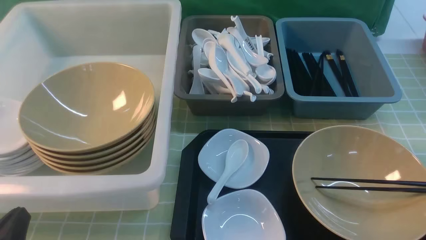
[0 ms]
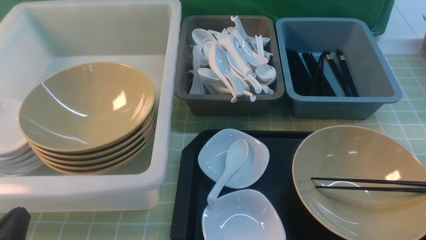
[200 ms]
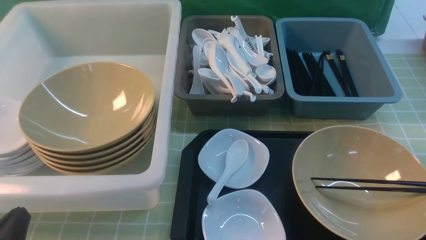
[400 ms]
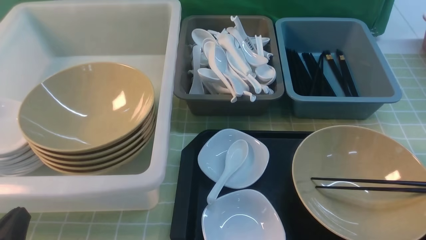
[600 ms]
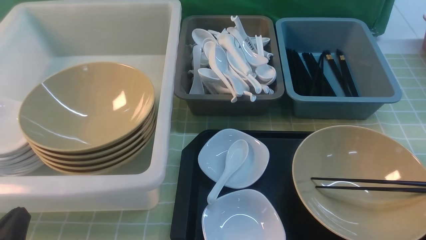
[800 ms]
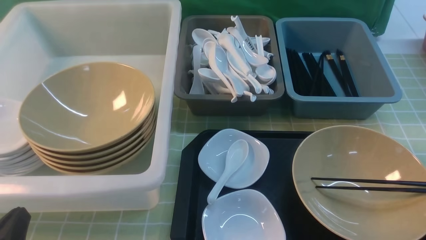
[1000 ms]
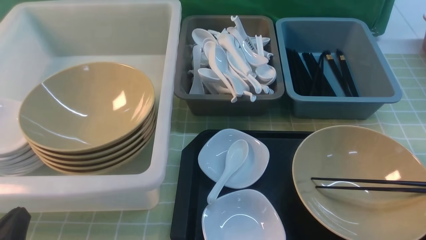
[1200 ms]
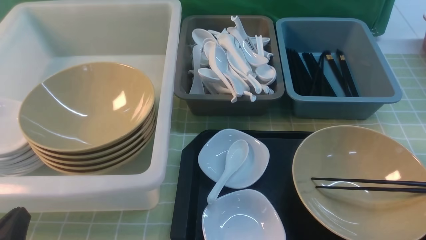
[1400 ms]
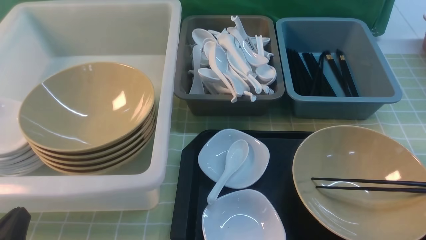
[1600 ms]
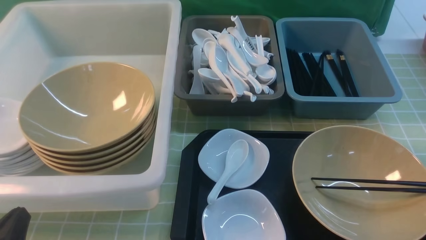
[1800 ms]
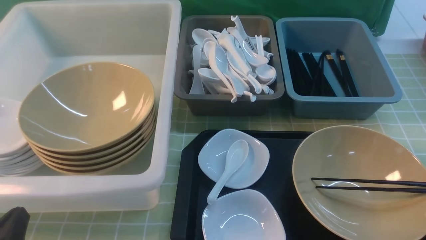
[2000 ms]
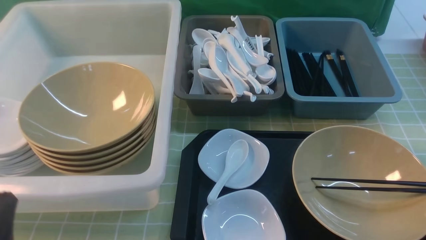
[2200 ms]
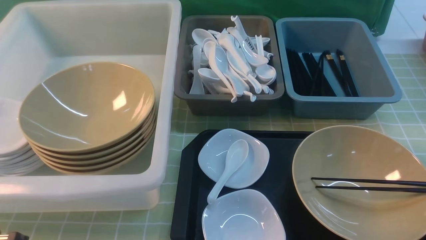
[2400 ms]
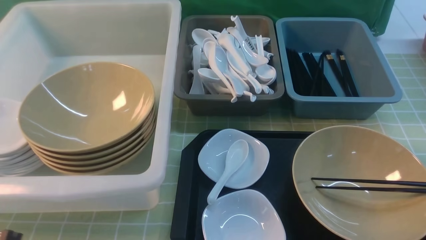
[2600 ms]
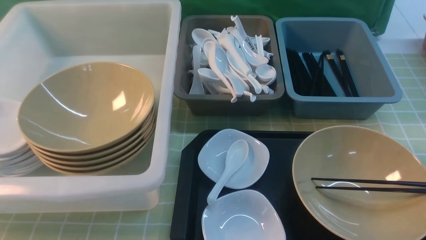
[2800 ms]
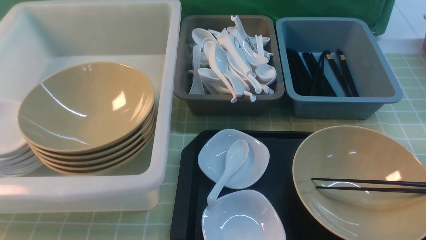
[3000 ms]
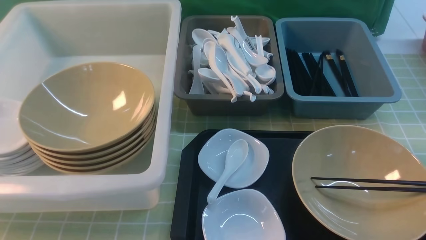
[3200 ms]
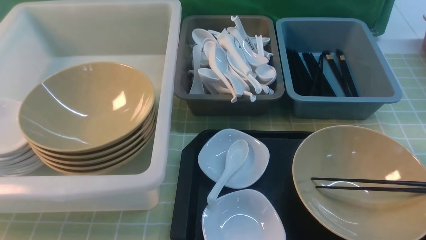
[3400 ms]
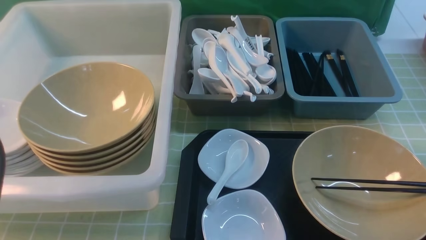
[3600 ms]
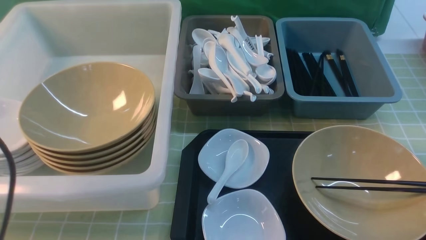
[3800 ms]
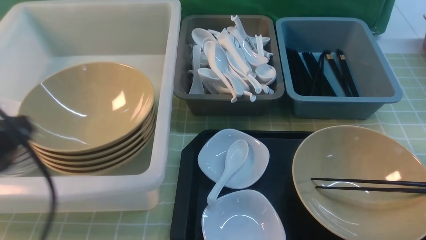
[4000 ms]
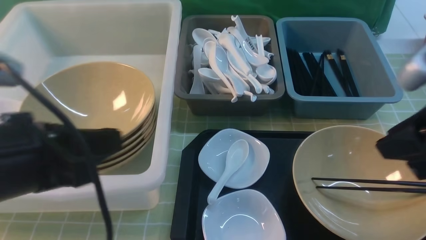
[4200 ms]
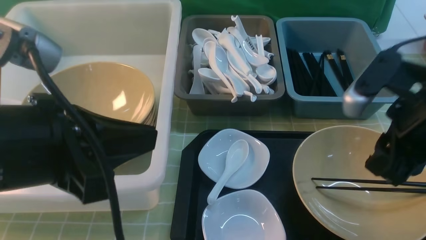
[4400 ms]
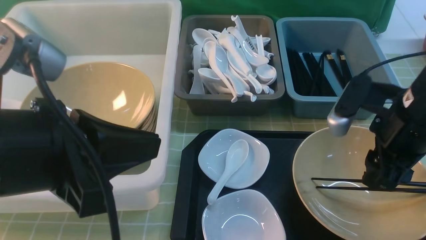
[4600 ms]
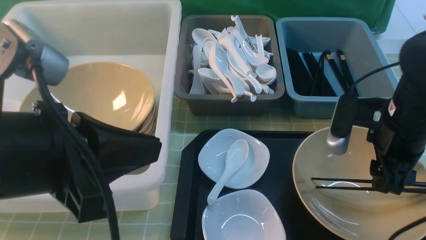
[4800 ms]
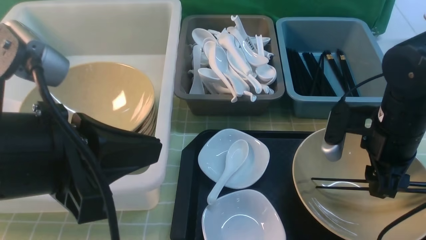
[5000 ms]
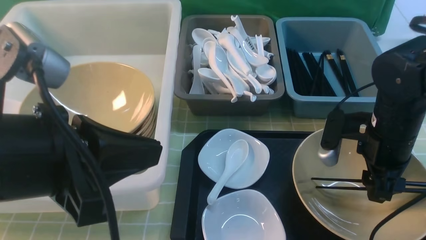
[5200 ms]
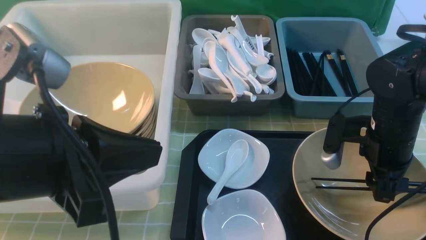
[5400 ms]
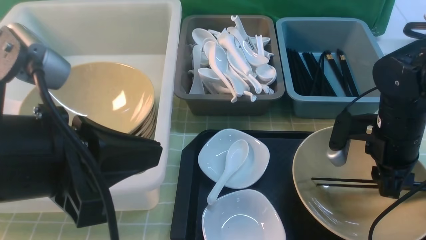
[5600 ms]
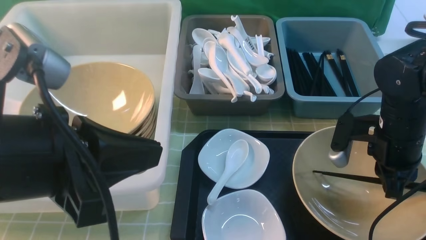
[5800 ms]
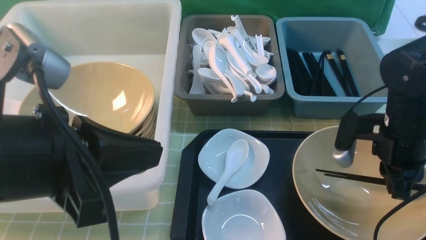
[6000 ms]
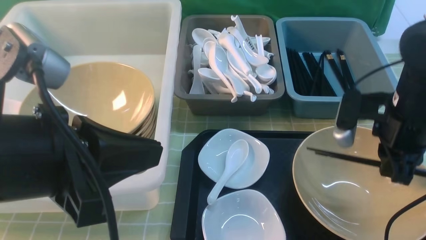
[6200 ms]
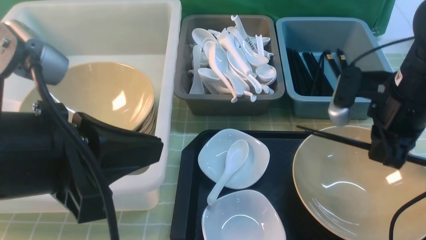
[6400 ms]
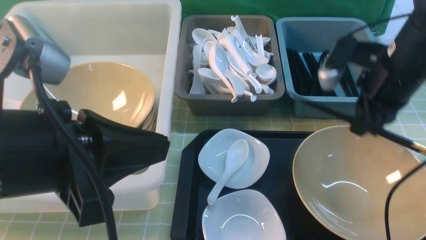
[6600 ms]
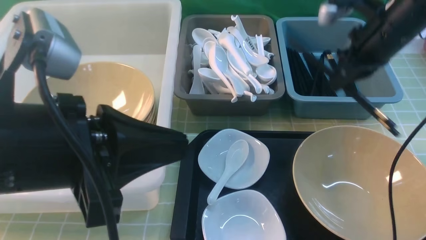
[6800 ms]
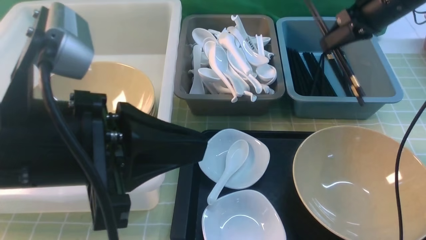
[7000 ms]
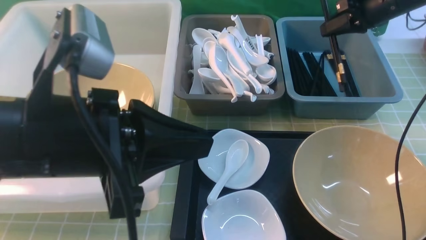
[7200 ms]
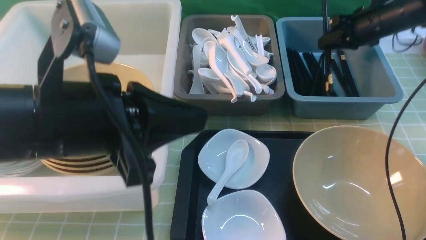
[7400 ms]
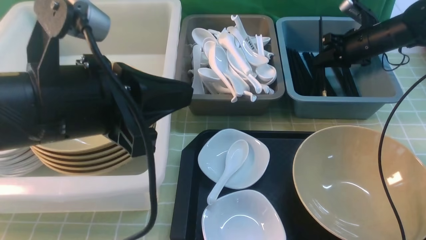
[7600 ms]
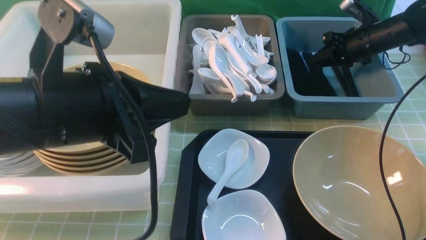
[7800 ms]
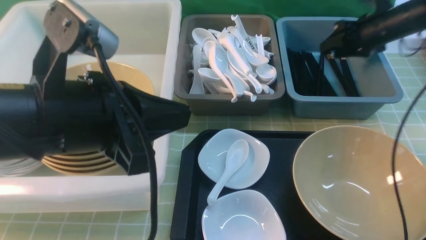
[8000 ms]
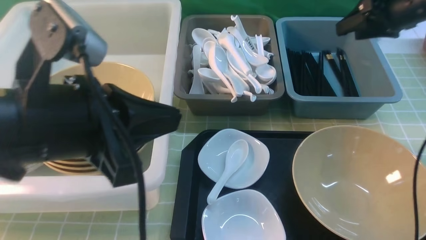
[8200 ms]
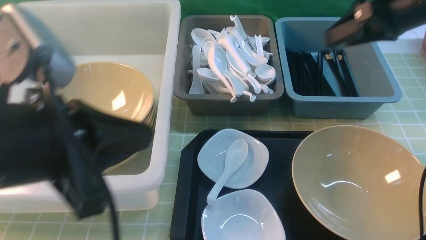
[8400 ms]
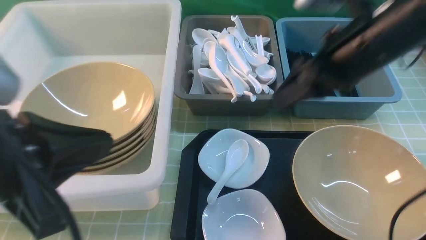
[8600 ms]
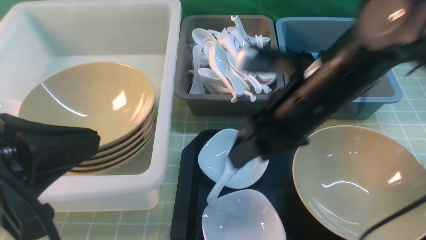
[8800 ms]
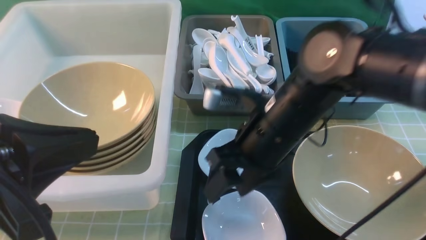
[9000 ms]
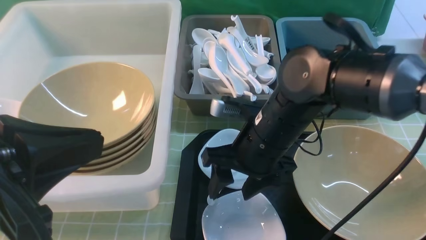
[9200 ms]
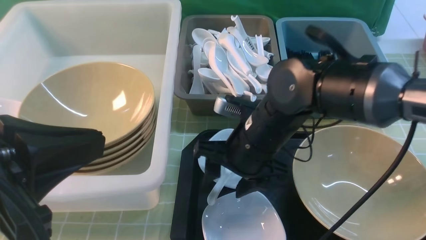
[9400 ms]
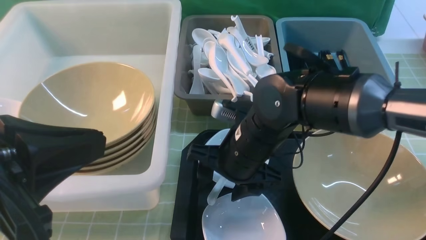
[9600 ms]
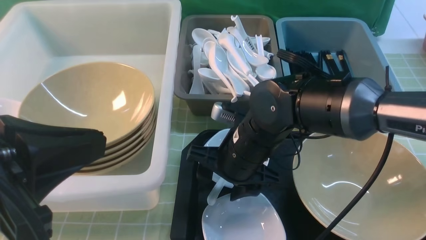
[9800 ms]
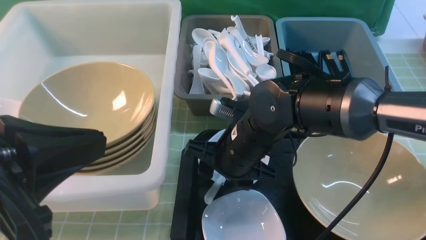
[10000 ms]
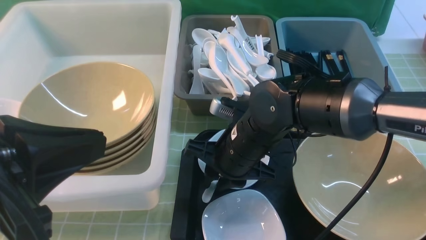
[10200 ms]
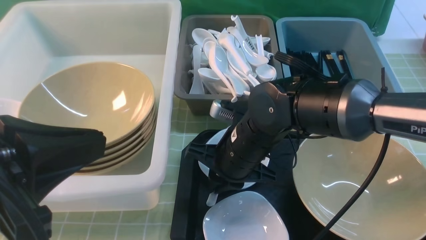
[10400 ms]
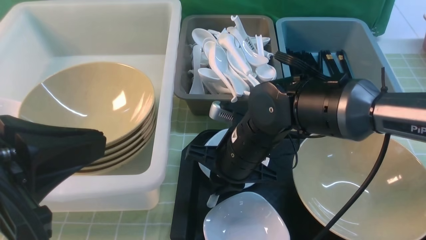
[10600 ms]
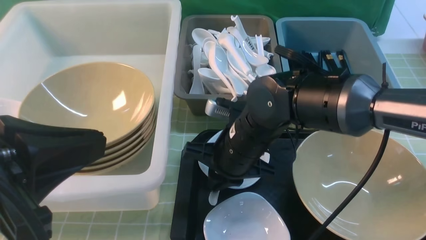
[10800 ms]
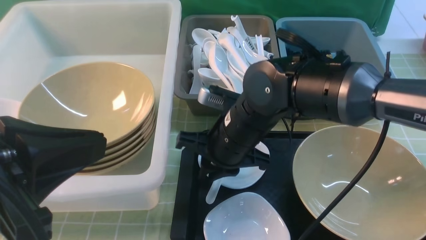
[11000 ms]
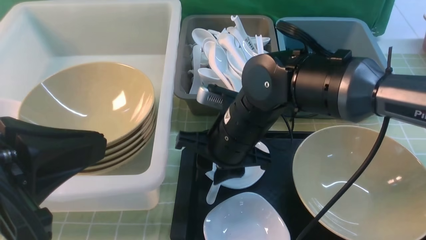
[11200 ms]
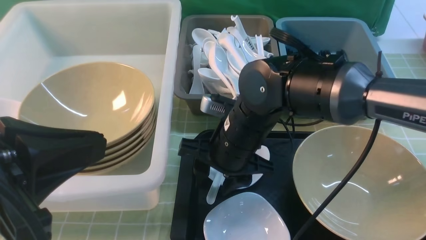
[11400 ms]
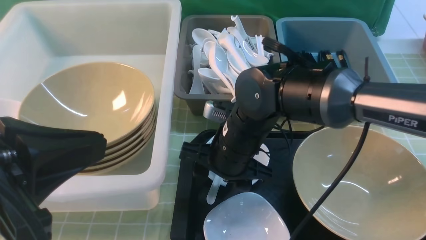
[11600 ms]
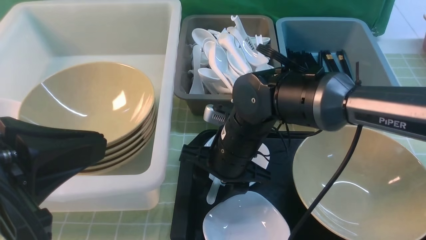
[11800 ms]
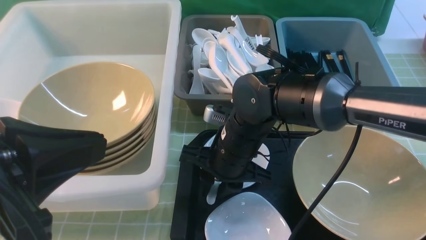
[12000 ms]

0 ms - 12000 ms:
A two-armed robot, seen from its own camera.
Task of the whole recording: on green table put chopsticks spoon bowls plates into blue grey white boxes.
Step, 0 ms - 6000 ms: use the right arm to grab the chopsticks.
Step, 6200 ms - 7800 ms: use the right arm to put the chopsticks into the small storage box on the right.
0 ms - 1600 ms: Neither gripper changes place.
1600 ms - 3000 ms: The left gripper heads upward, covering roughly 10 cm.
3000 ms - 4400 ms: The left gripper moves to the right, forward and upward, about 15 cm, while the right gripper travels forward and to the left by approximately 20 cm.
4400 ms - 6000 ms: The right gripper is displaced downward and forward by some 10 cm, and closes up.
6000 ms - 7600 ms: The left gripper moves approximately 5 cm, while the right gripper shifts about 25 cm forward.
7600 ms - 9000 ms: The left gripper travels backward and to the left by roughly 10 cm; the right gripper is displaced backward and to the left by about 35 cm, and opens up.
9000 ms - 10400 ms: The right gripper is displaced downward by about 5 cm, and closes up.
10400 ms - 12000 ms: The right gripper opens and closes again.

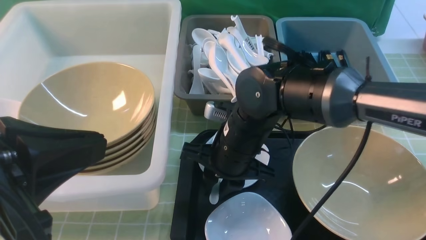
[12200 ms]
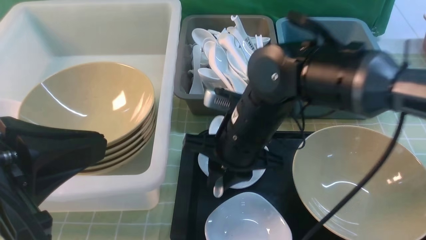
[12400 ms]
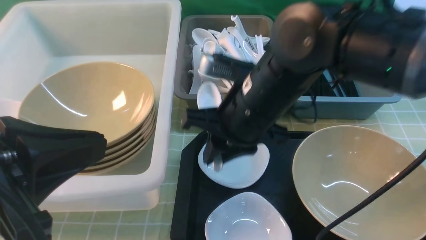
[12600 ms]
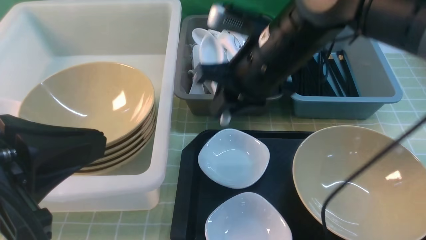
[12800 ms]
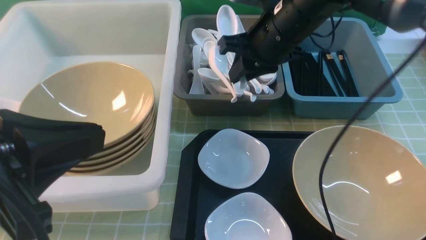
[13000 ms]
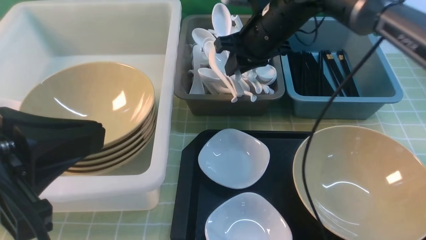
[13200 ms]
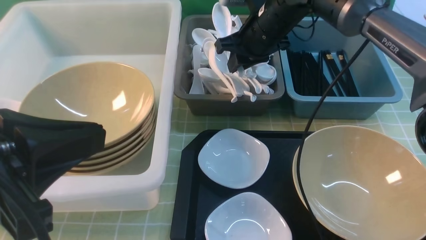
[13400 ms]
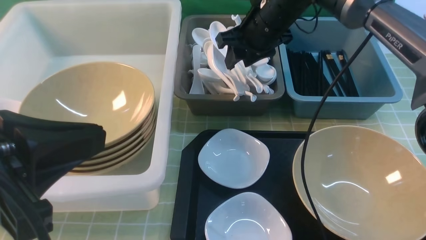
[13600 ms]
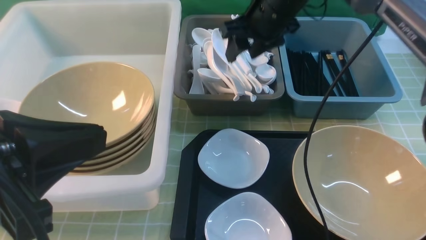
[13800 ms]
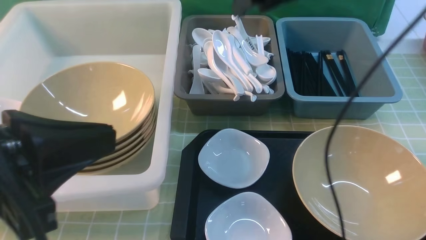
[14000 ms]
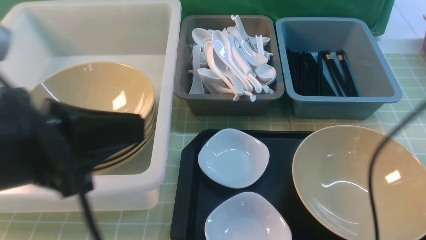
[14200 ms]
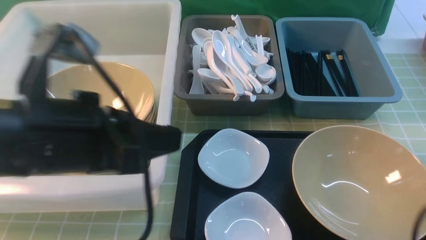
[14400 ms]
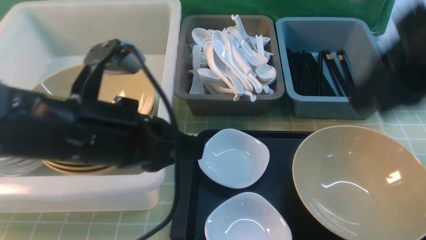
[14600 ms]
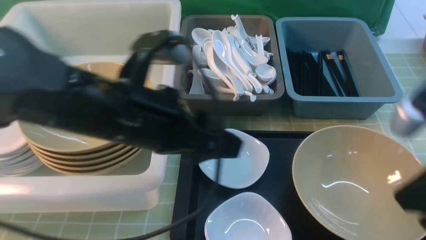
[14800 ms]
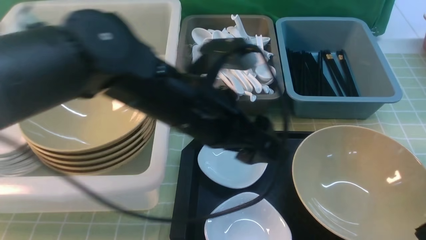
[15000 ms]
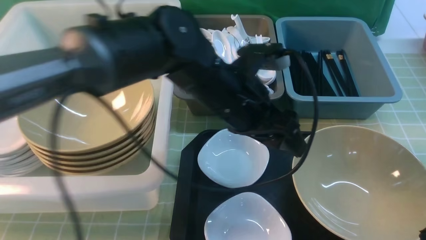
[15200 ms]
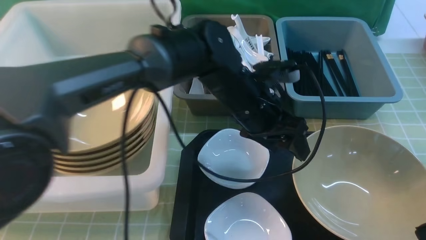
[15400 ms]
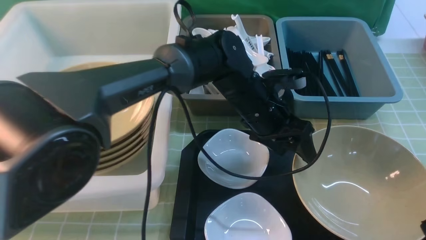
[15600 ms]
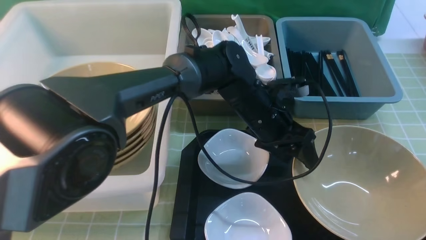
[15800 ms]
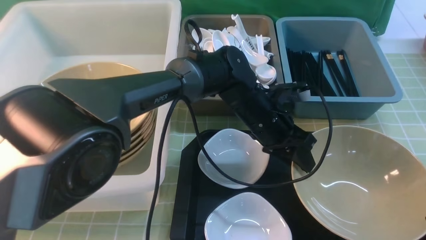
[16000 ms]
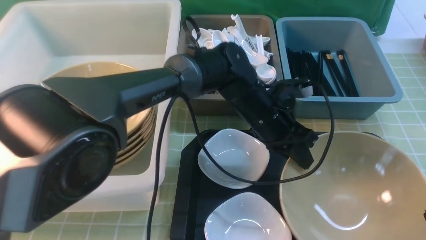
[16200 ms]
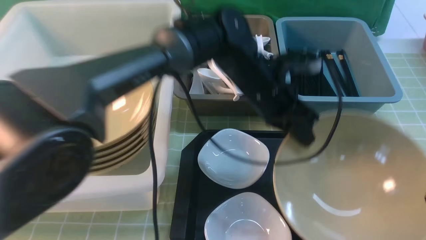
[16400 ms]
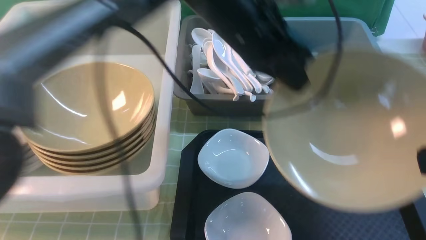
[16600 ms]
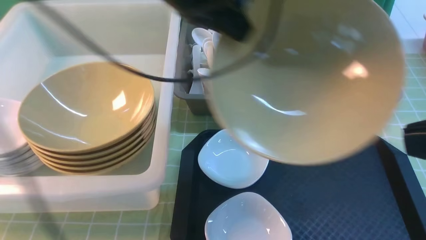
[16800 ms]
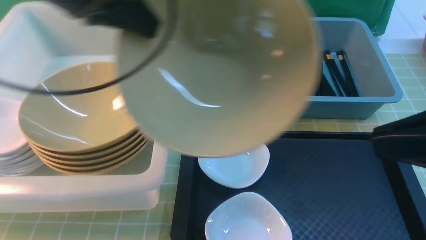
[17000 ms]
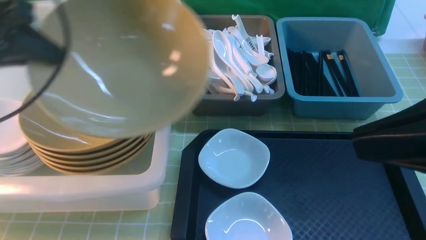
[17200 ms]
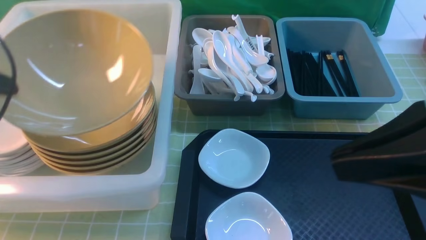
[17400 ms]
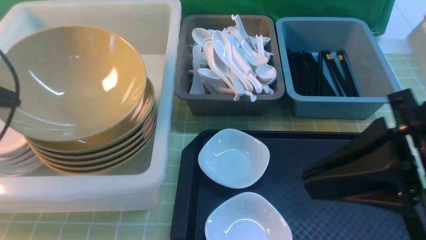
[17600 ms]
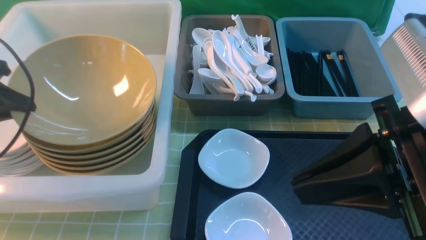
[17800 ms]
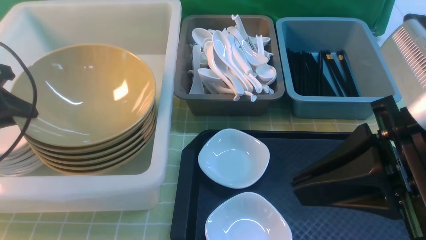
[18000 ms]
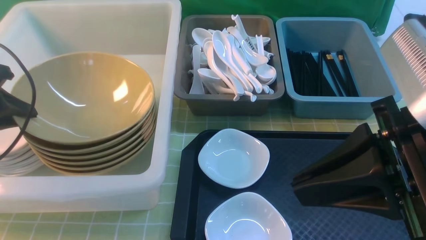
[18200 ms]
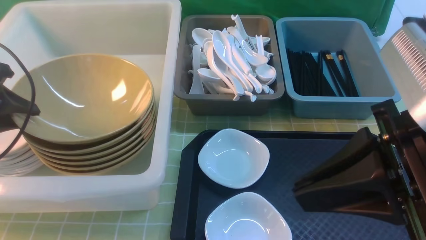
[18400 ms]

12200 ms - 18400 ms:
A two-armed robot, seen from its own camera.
Task of the whole recording: on green table put chopsticks spoon bowls plates into blue grey white boxes.
Step, 12600 ms - 14400 ms: use the right arm to put the soup spoon into the small storage box in the middle.
Step, 14600 ms - 16600 ms: use the left arm to grab the yellow noodle bowl on the left.
12200 ms - 13800 ms: The right gripper goes roughly 20 cm upward, forward and to the right, and opens its fingers.
13800 ms - 15400 ms: The right gripper shifts approximately 35 cm backward and to the right, and closes its fingers, while the left gripper heads to the right, forward and downward, covering about 35 cm, and opens up.
15400 ms - 16800 ms: The left gripper heads upward and to the left, covering approximately 25 cm, and closes up, while the right gripper moves upward, about 10 cm.
16800 ms - 18400 ms: The left gripper moves to the left and downward, about 30 cm, and opens up, while the right gripper goes roughly 5 cm to the left.
